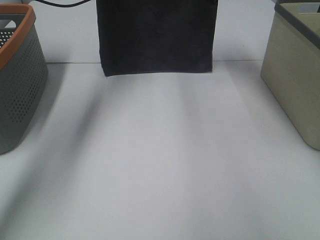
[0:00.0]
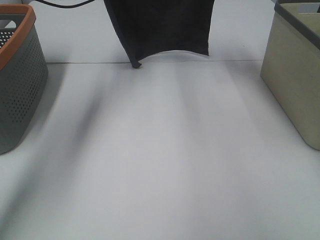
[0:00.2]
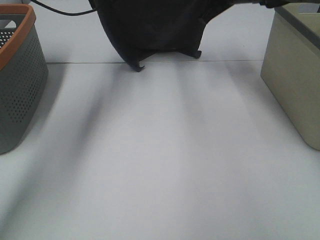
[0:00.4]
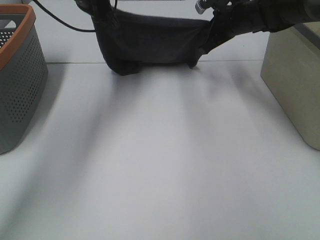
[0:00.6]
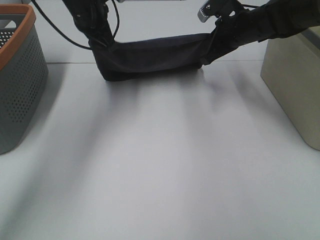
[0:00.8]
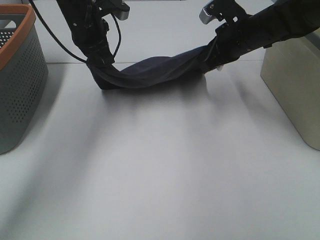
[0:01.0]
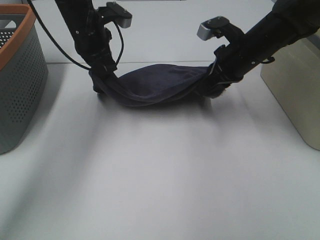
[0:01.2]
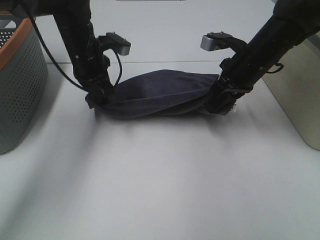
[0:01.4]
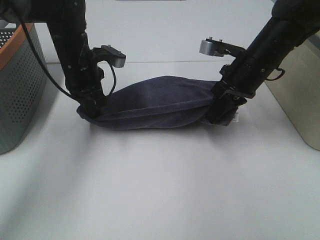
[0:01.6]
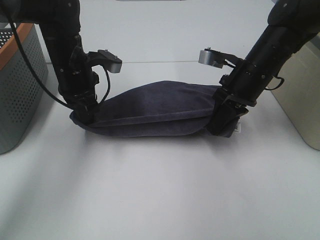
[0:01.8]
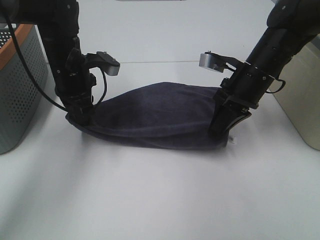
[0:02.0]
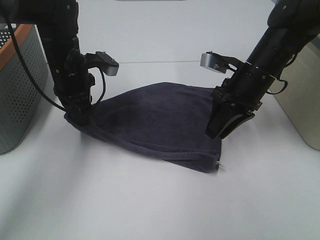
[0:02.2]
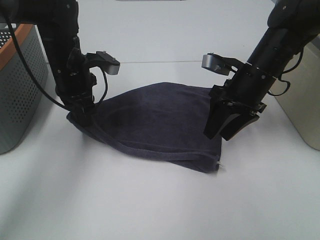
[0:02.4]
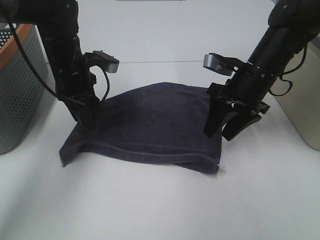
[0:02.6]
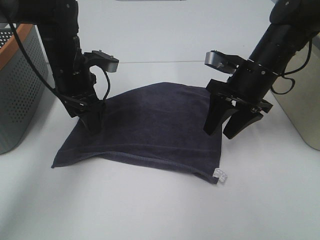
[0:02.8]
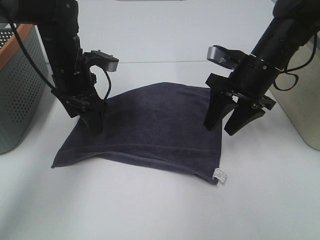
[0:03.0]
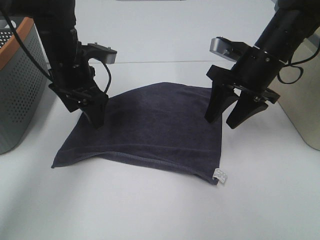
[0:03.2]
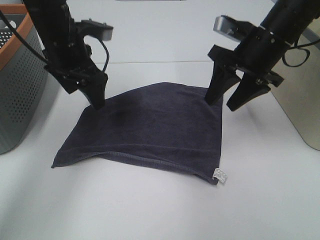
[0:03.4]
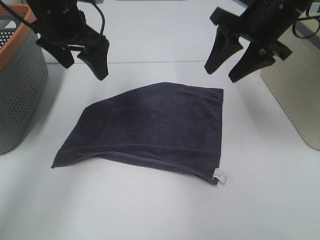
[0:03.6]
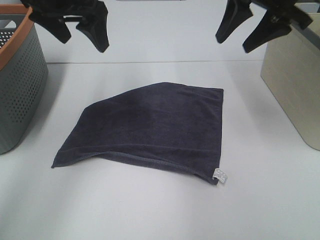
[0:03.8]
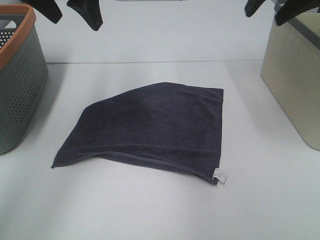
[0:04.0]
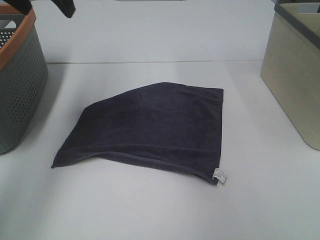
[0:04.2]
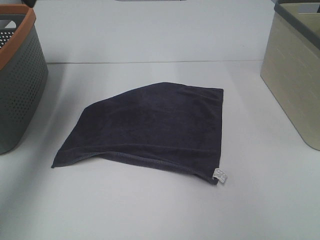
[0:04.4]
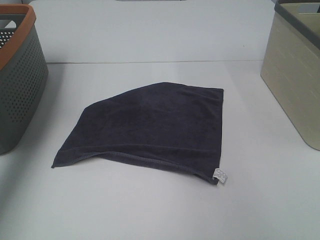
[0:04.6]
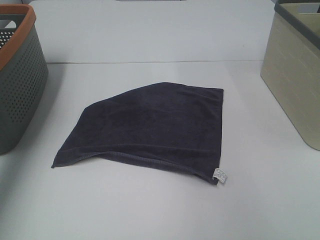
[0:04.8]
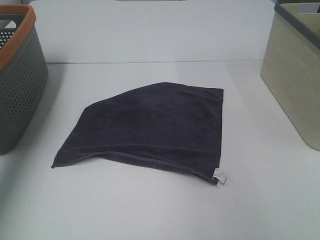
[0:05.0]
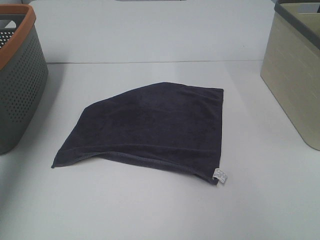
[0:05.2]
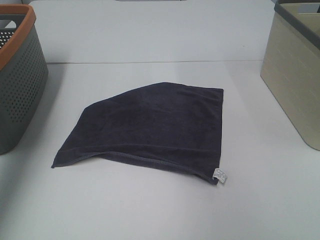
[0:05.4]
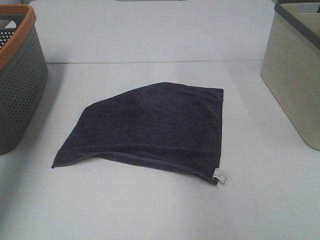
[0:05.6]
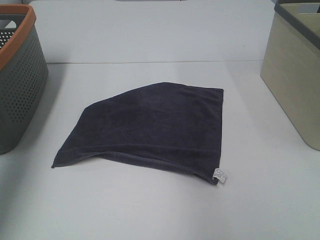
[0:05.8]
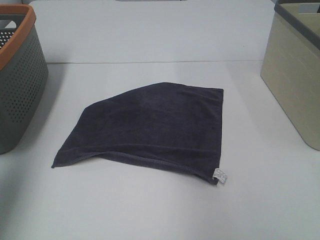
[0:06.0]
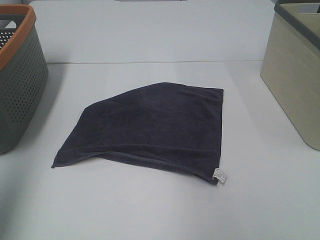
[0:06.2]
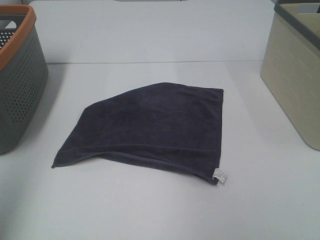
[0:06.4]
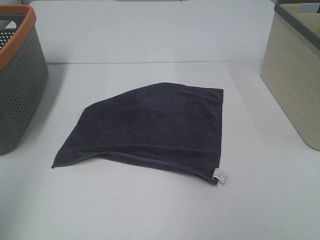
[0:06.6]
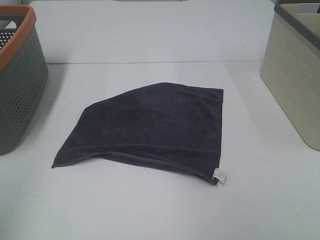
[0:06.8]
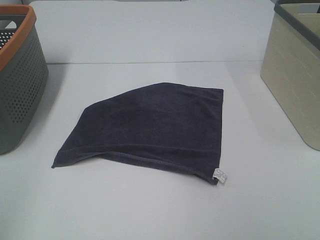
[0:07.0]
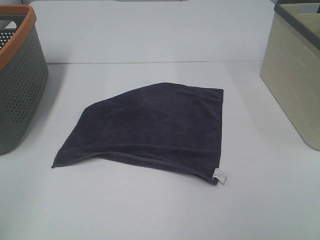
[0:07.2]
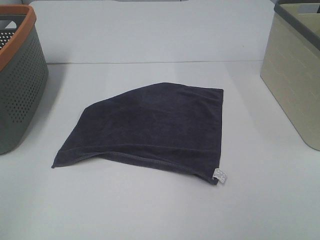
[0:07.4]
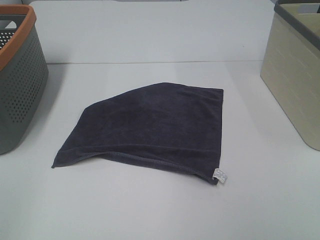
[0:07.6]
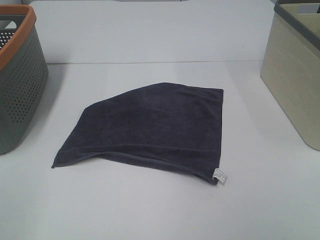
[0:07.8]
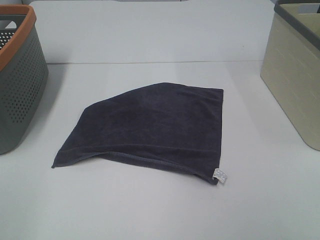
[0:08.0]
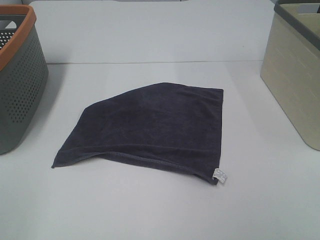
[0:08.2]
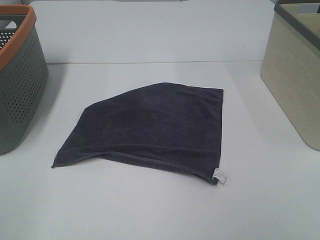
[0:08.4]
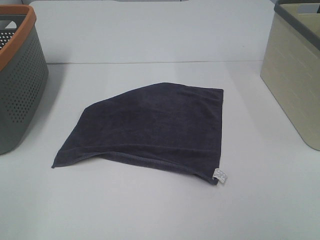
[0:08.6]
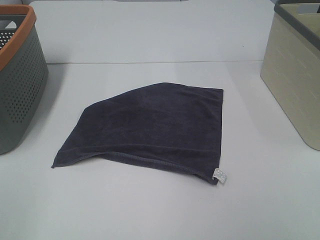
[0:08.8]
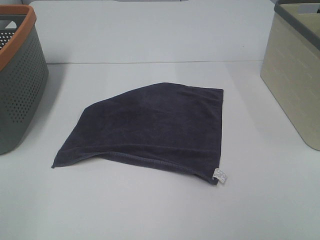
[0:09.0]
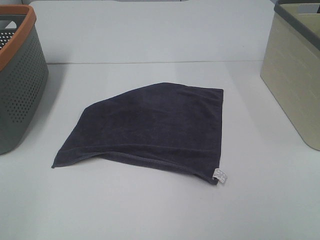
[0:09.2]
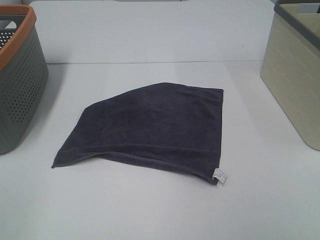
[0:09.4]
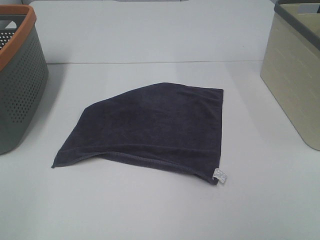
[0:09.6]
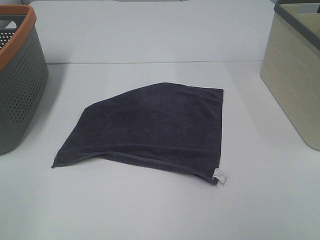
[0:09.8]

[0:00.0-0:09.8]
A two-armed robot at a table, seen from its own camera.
Task of the whole recording: Remove the towel and place it.
0:00.0 to 0:01.4: The right gripper shifts some 20 cm backward and downward, while the left gripper is displaced downward and backward by some 15 cm.
0:01.4 to 0:02.8: The left gripper opens. Meanwhile the right gripper opens.
0:02.8 to 0:04.2: The left gripper is displaced upward by about 20 cm. Meanwhile the right gripper travels upward and to the right by about 25 cm.
0:04.2 to 0:05.6: The left gripper travels to the left and backward by some 20 cm.
0:05.6 to 0:07.0: The left gripper shifts approximately 25 cm backward.
0:08.4 to 0:09.8: Both grippers stay put.

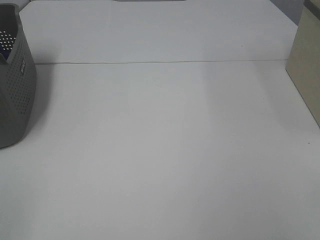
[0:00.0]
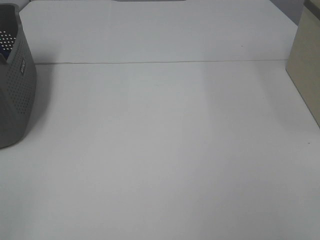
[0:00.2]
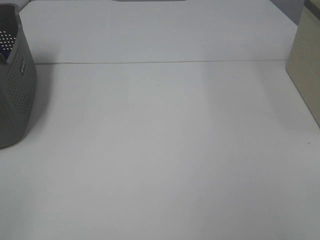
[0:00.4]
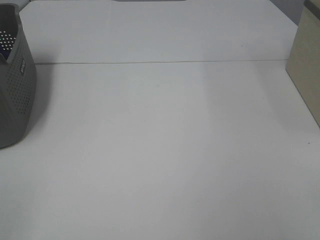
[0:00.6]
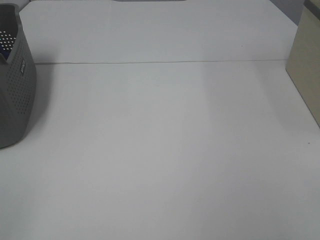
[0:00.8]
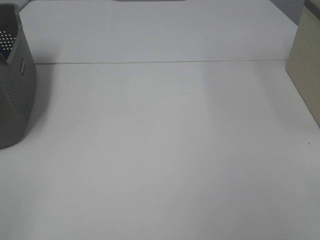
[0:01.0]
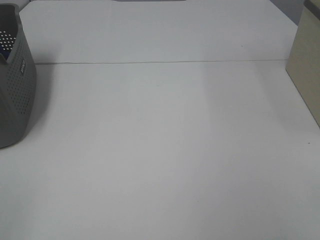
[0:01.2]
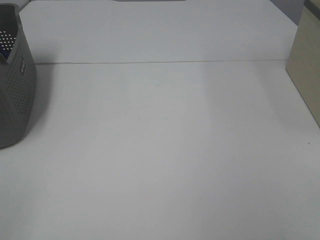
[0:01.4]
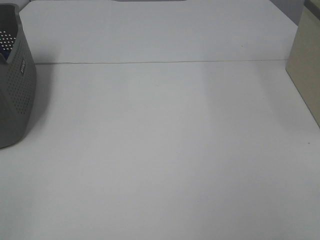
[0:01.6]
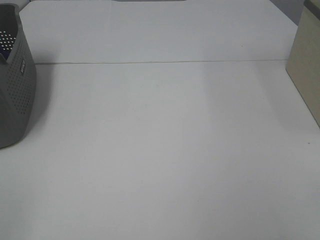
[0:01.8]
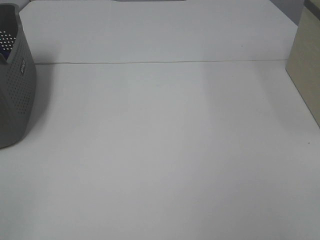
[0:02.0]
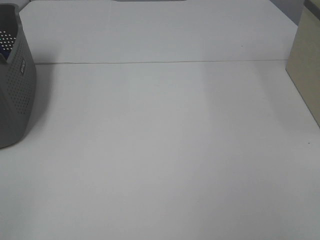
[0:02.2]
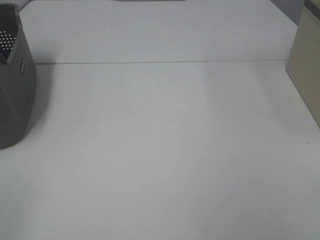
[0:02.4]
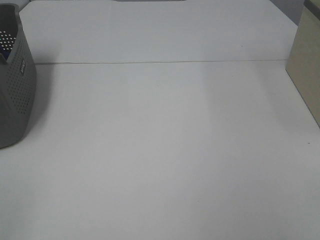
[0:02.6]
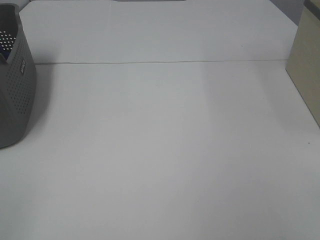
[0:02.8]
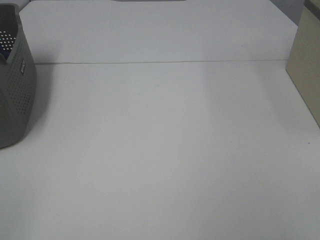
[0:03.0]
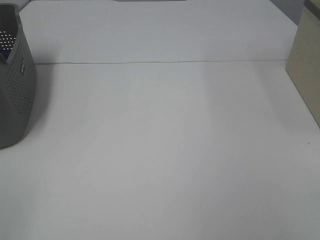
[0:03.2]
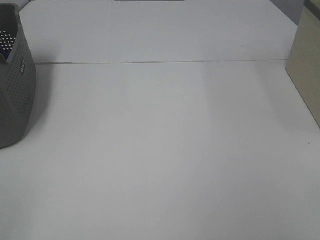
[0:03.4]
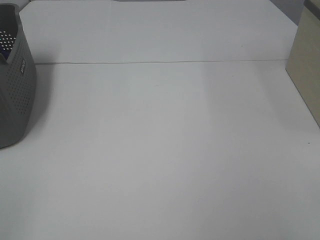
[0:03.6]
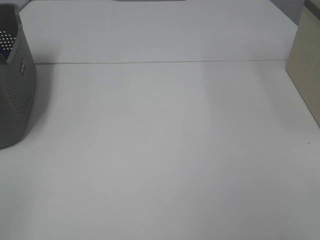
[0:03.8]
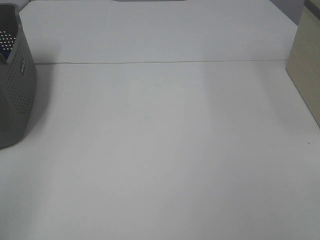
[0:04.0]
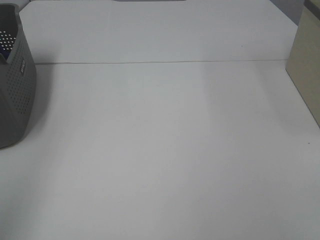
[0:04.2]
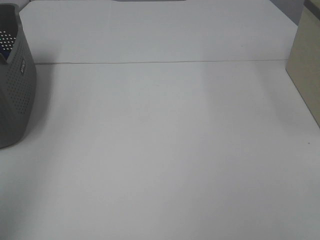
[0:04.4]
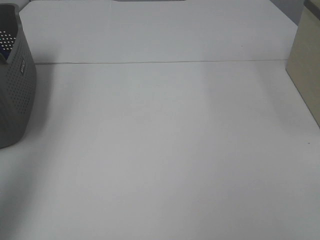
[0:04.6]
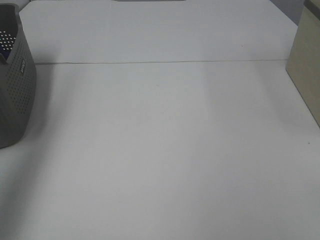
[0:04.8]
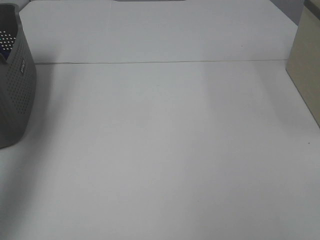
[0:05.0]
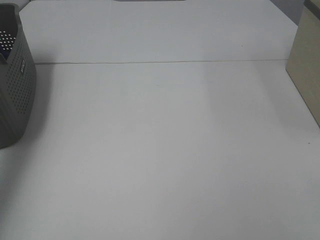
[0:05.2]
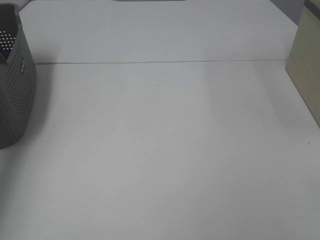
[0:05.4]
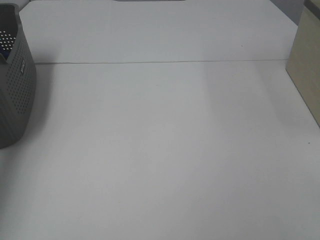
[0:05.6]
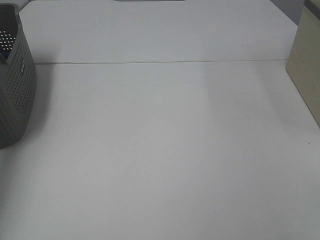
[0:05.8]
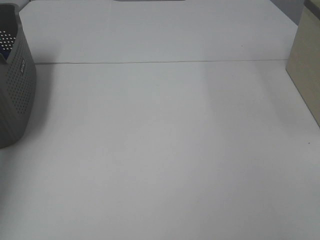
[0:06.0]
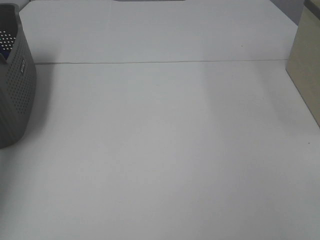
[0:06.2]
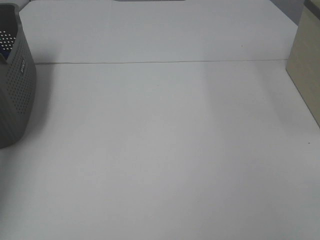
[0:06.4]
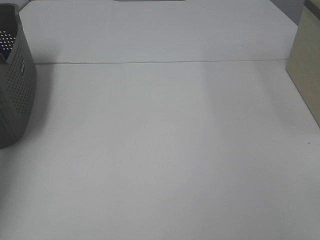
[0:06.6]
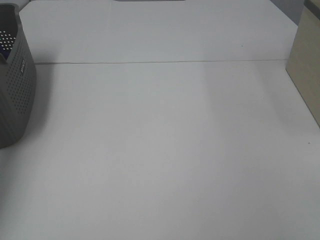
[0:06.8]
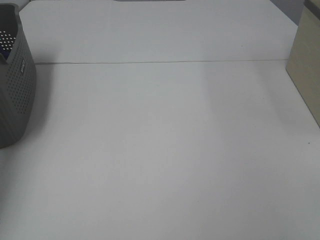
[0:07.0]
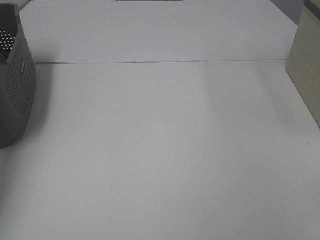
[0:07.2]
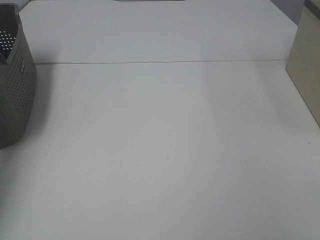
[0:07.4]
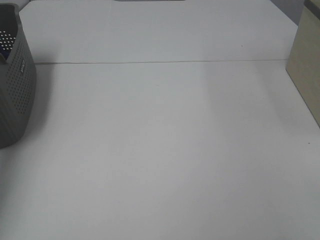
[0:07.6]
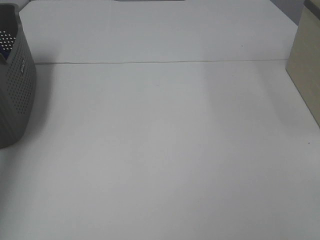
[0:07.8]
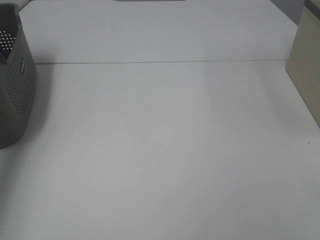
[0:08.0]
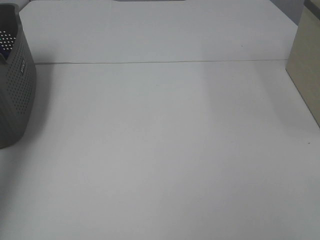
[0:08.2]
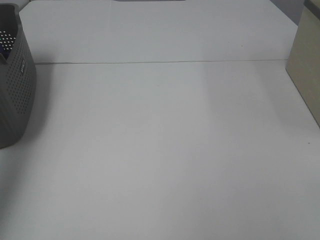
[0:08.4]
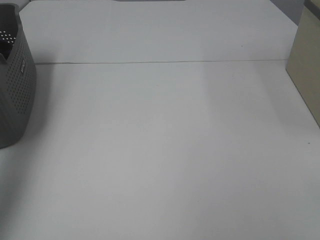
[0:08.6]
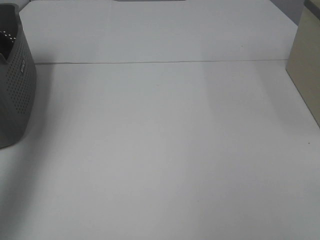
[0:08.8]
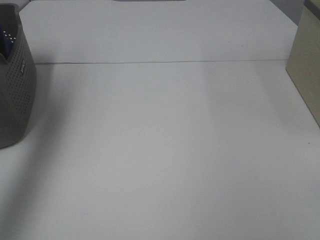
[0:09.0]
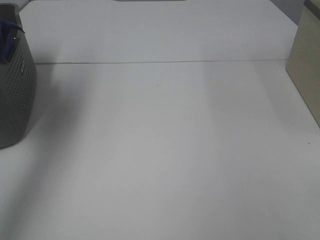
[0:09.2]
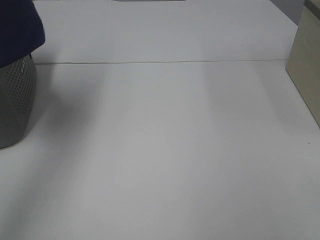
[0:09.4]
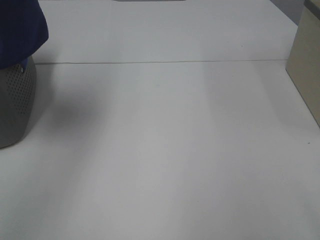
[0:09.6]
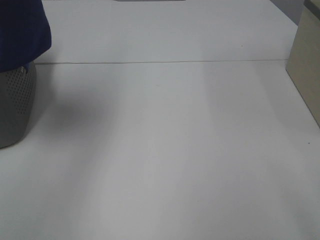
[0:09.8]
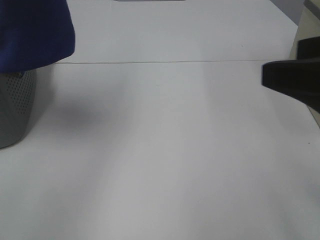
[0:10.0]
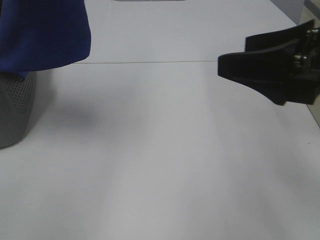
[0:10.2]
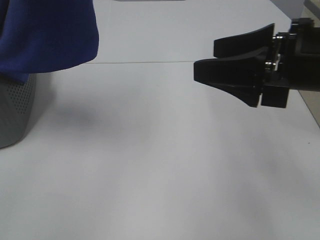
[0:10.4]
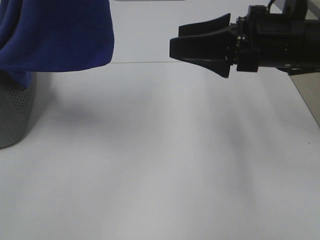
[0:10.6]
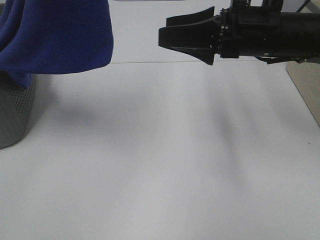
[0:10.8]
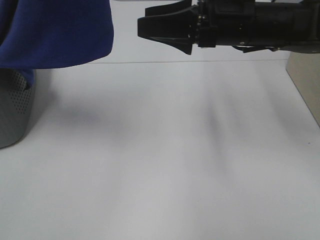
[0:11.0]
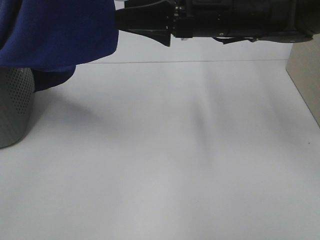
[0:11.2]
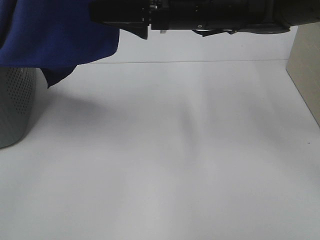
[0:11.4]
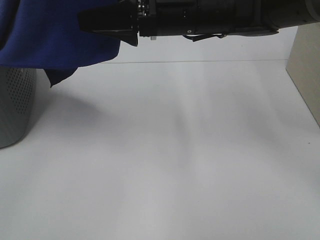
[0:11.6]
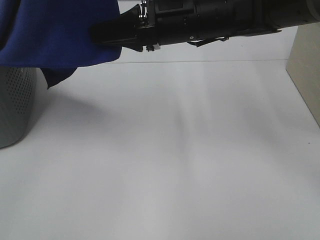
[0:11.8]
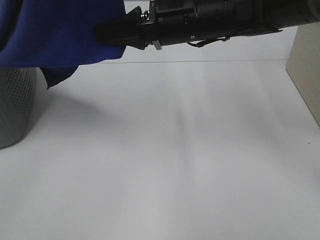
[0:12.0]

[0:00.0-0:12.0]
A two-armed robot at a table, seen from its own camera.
Task of the whole recording: Remove the towel and place it.
Step, 0:09.2 to 0:11.4: Right hand: grab a corner of the blue towel and straighten it.
0:00.0 to 0:03.0: Both grippers stay put.
0:03.0 to 0:04.4: The left gripper moves upward and forward, approximately 20 cm.
0:04.4 to 0:06.0: The left gripper is displaced forward and downward by some 40 cm.
0:07.6 to 0:09.0: The left gripper moves upward and backward, approximately 30 cm.
0:09.0 to 0:10.4: The left gripper heads to the right, covering roughly 15 cm, while the right gripper heads forward and to the left, covering some 25 cm.
0:10.4 to 0:12.0: The right gripper travels to the left and forward by some 20 cm, and closes.
